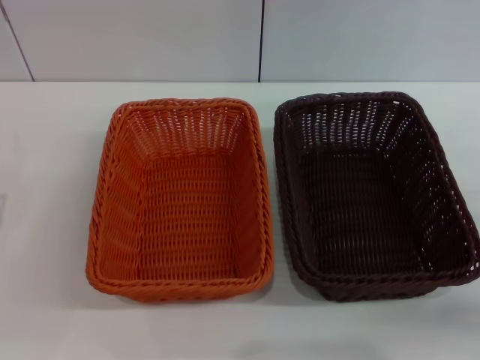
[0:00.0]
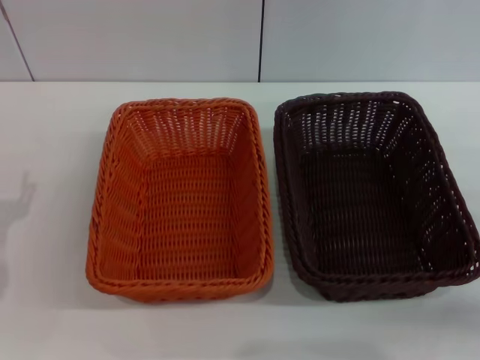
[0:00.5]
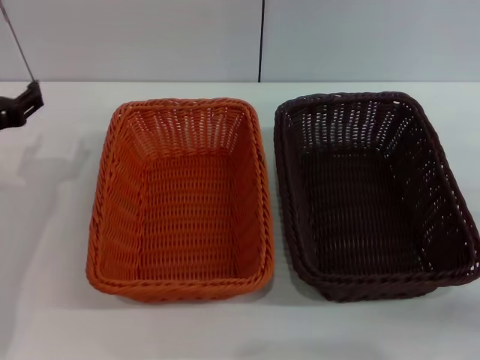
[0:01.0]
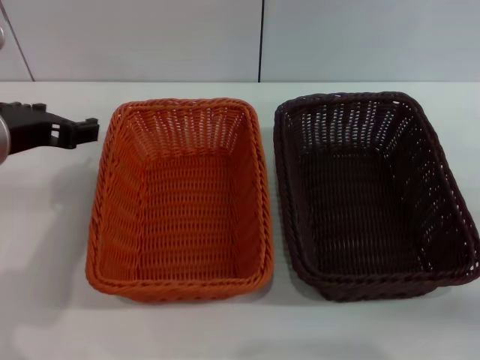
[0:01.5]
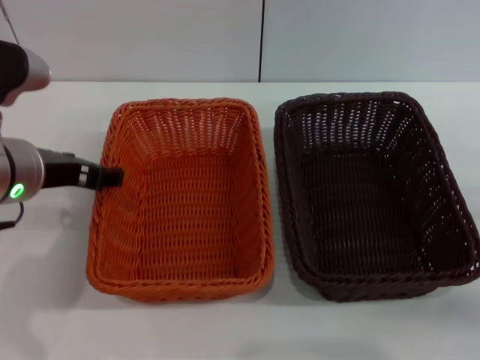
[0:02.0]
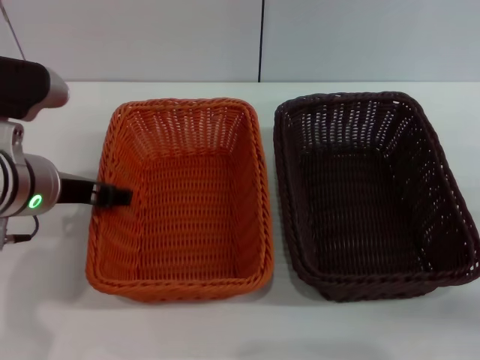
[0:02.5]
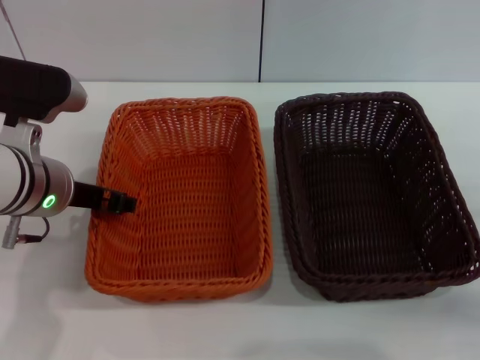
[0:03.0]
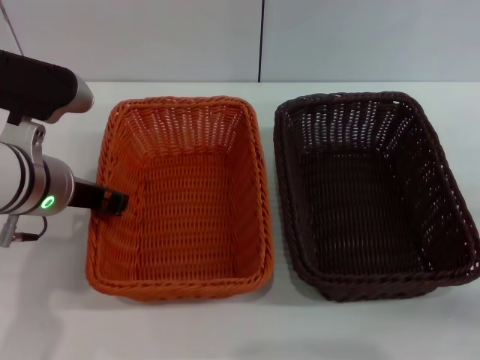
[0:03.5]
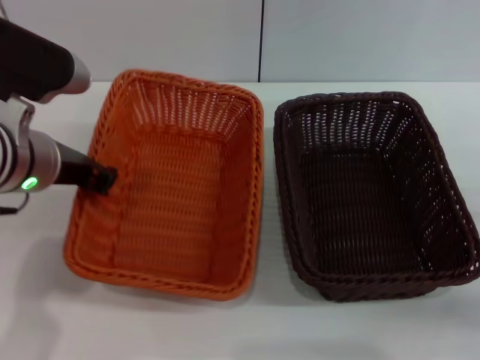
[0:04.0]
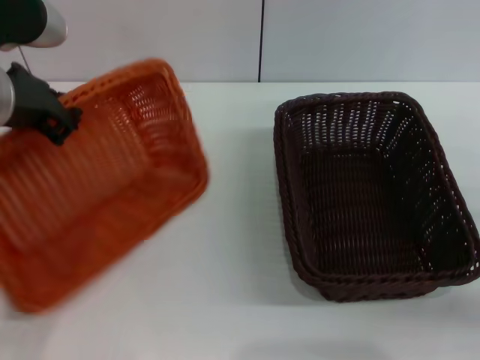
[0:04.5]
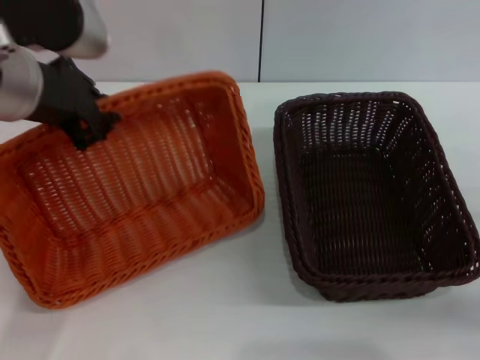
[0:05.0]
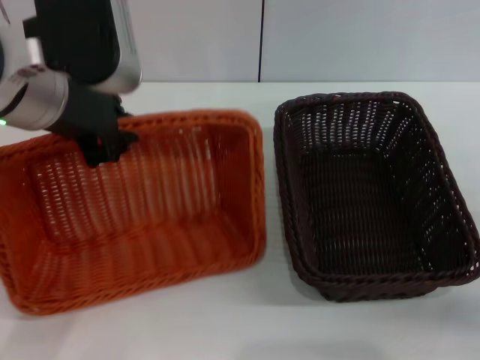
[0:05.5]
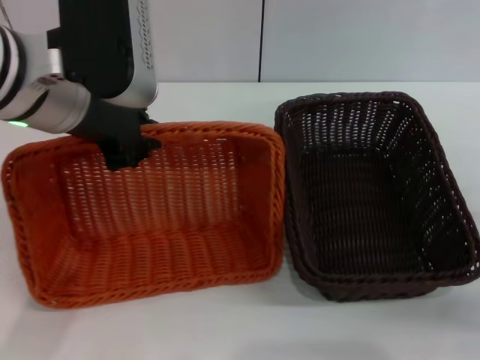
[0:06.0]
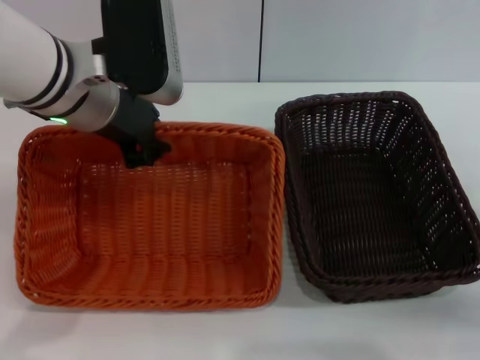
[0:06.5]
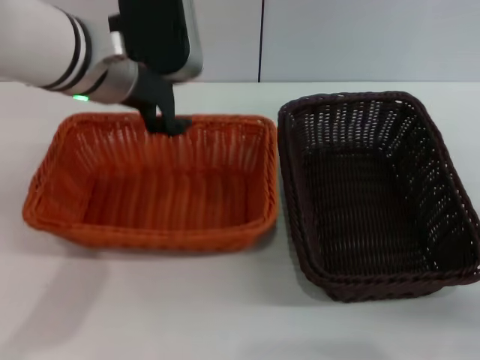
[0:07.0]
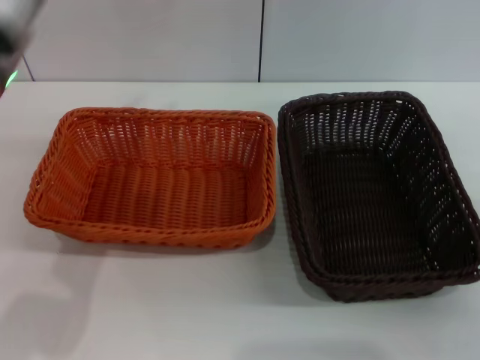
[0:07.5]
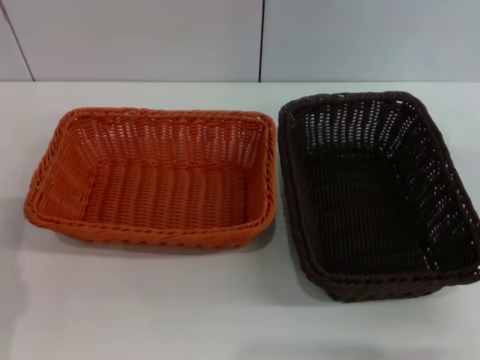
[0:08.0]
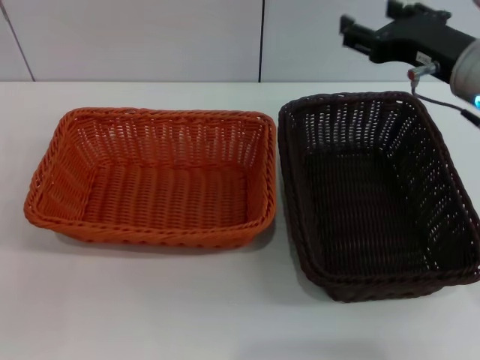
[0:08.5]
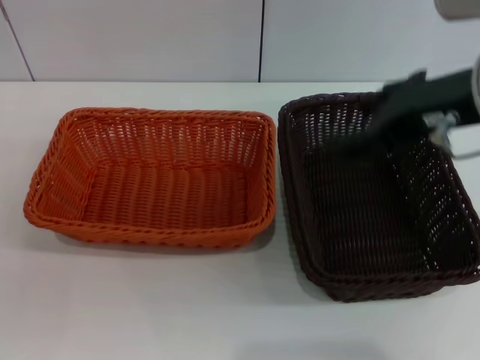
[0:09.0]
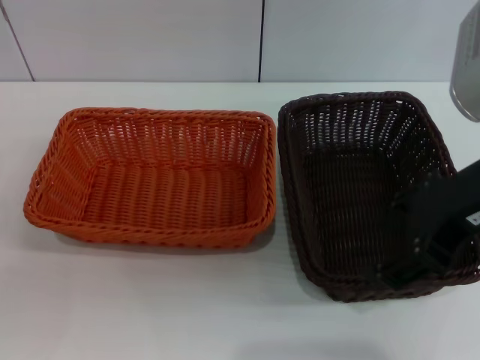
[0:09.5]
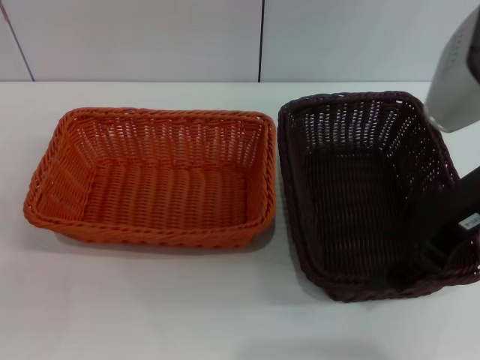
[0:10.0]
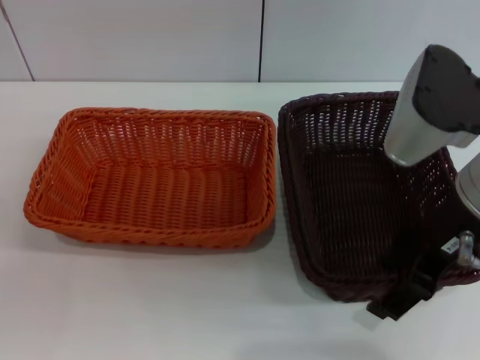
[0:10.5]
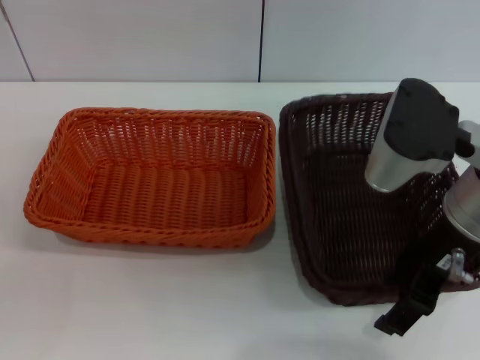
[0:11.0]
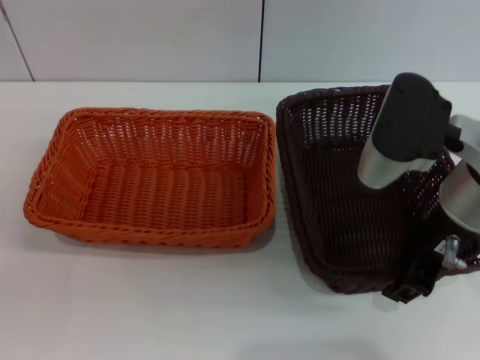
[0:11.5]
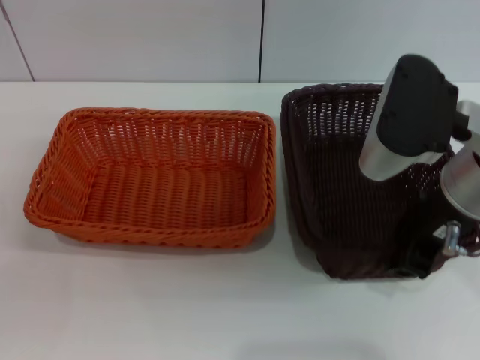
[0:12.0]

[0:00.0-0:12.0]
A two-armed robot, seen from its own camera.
Step, 0:00.0 to 0:04.0: Pick up the light basket with the left gripper.
Step, 0:04.5 to 0:07.0: Place the light basket in the center of view with the left gripper.
0:00.0 to 0:02.0: The left gripper shifts about 20 cm upward, to the right and forward.
0:02.0 to 0:04.0: The left gripper closes its fingers.
0:04.0 to 0:06.0: The left gripper shifts approximately 10 cm upward.
0:06.0 to 0:08.0: The left gripper goes some 25 cm downward, to the left and backward, and opens its fingers. The right gripper goes some 10 cm upward, forward and to the left.
0:08.0 to 0:10.0: The right gripper shifts approximately 15 cm upward and to the left.
0:10.0 to 0:12.0: The right gripper closes up.

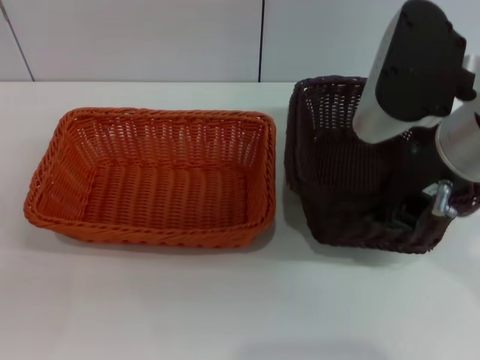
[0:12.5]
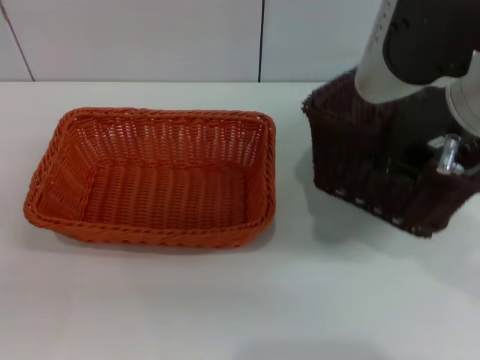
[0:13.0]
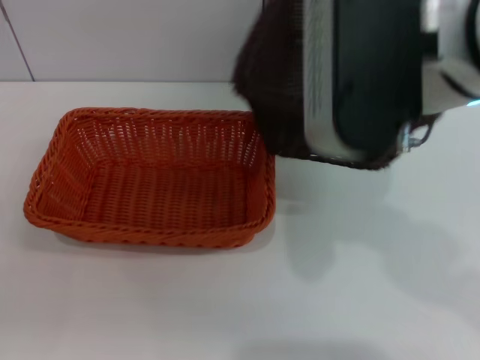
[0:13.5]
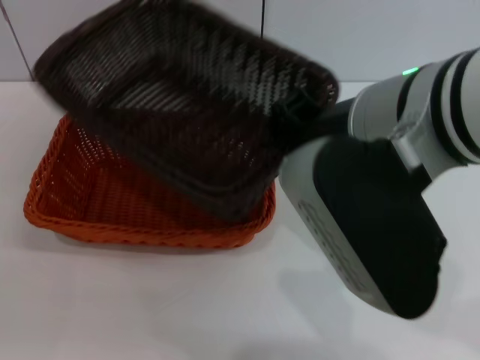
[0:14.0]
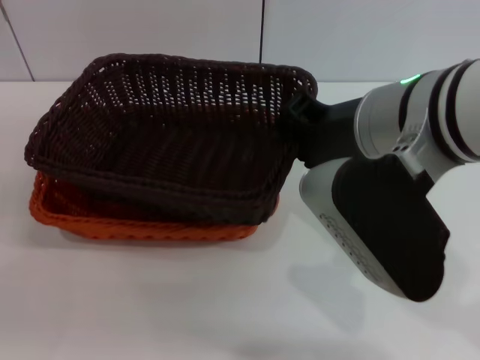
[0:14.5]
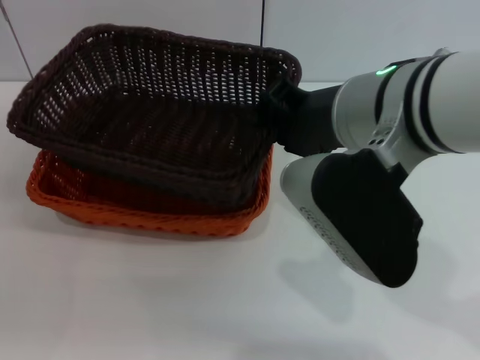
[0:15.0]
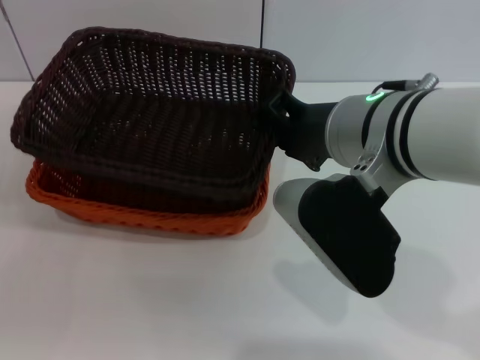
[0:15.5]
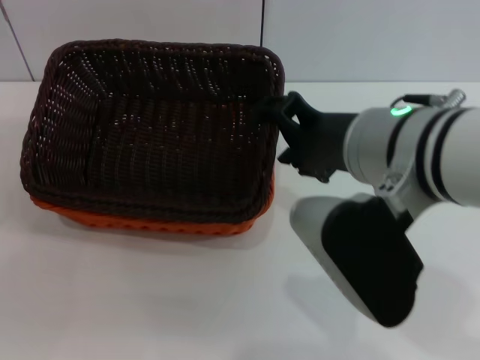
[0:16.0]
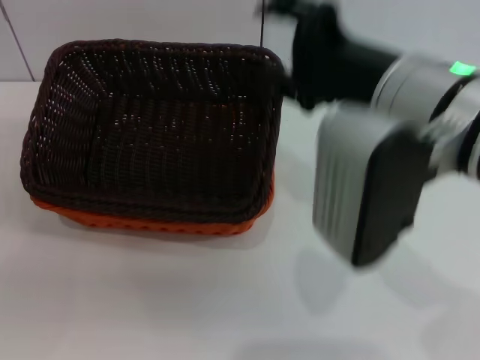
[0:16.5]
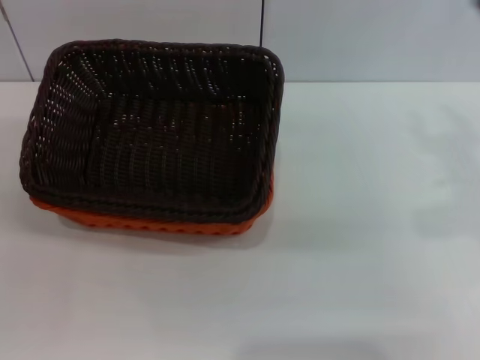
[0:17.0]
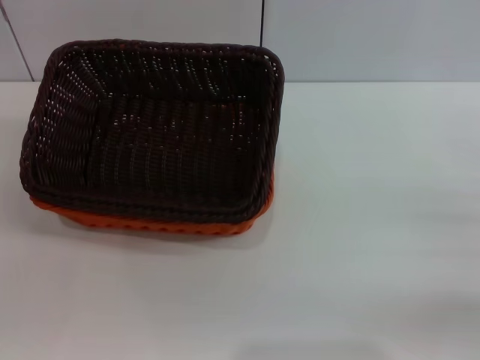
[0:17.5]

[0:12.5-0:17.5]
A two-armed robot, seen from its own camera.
Step, 0:13.0 to 0:16.0: Place the dark basket on the light basket with the right gripper.
0:12.5 to 0:15.0: The right gripper goes about 5 cm to the left.
0:15.0 to 0:17.5: The right gripper goes some 30 cm to the right and downward, and opens up.
